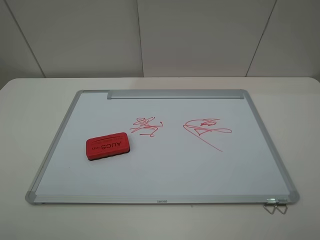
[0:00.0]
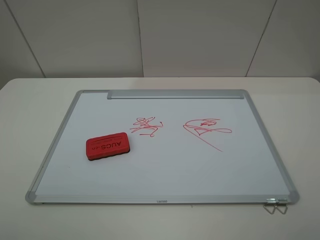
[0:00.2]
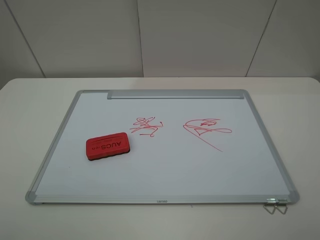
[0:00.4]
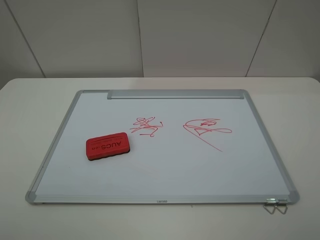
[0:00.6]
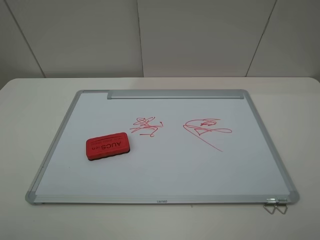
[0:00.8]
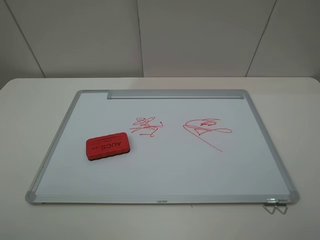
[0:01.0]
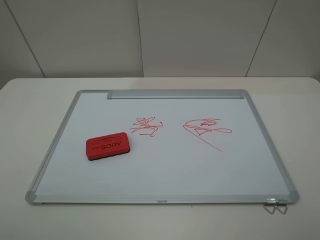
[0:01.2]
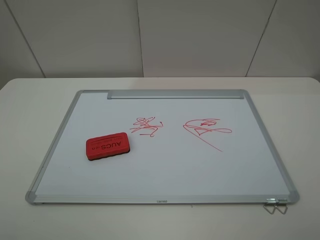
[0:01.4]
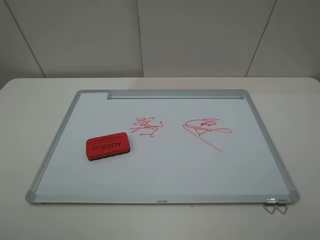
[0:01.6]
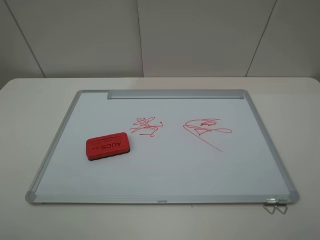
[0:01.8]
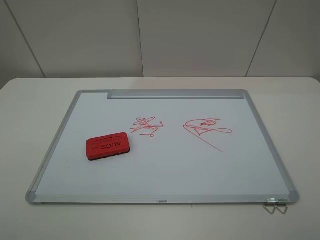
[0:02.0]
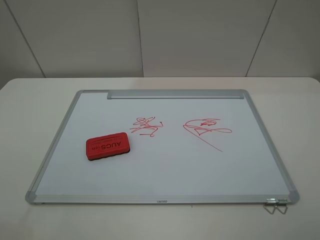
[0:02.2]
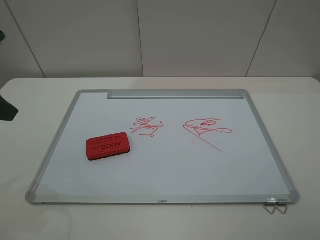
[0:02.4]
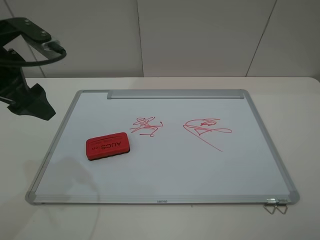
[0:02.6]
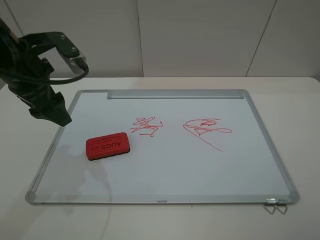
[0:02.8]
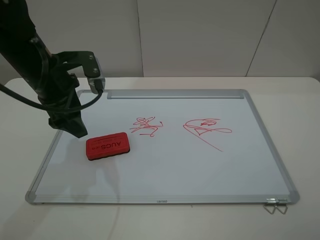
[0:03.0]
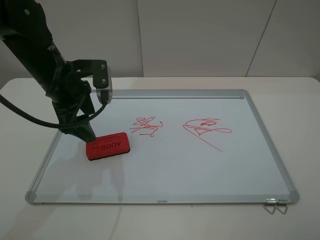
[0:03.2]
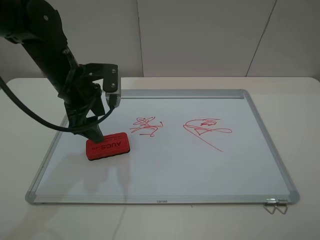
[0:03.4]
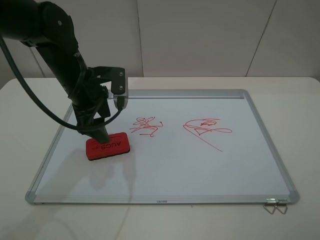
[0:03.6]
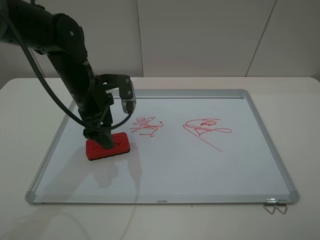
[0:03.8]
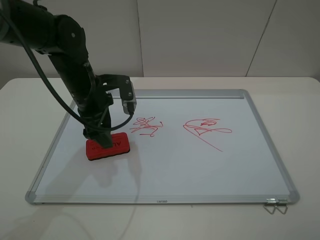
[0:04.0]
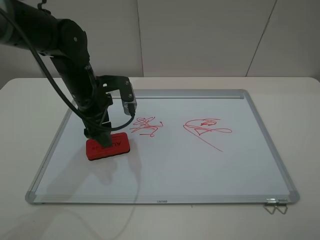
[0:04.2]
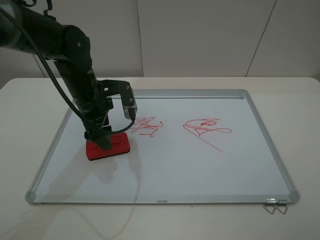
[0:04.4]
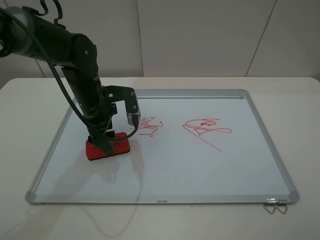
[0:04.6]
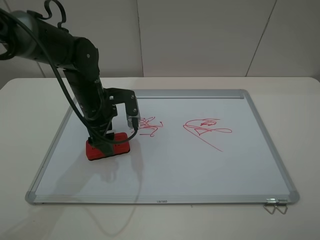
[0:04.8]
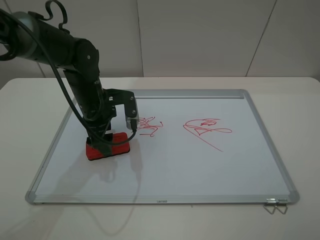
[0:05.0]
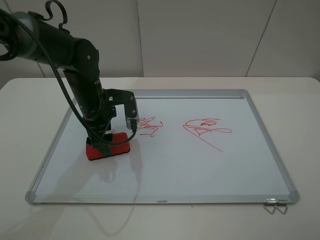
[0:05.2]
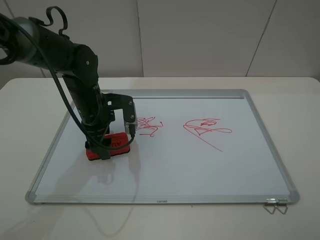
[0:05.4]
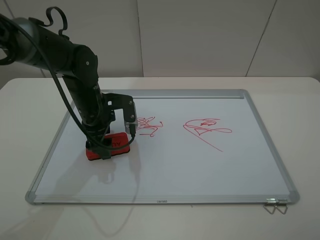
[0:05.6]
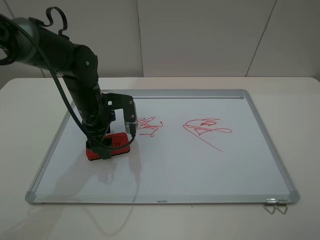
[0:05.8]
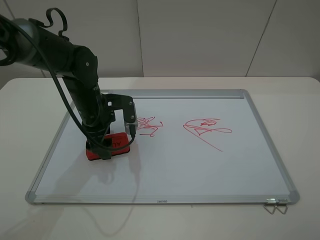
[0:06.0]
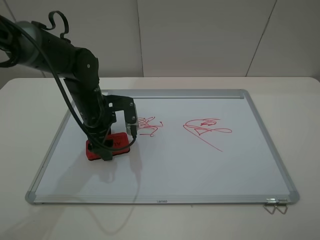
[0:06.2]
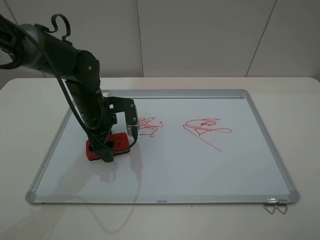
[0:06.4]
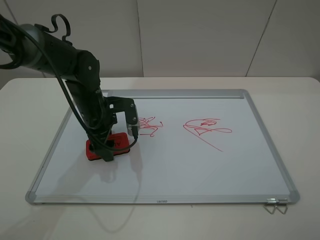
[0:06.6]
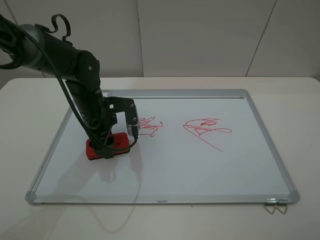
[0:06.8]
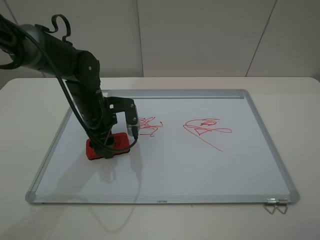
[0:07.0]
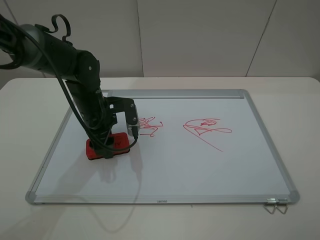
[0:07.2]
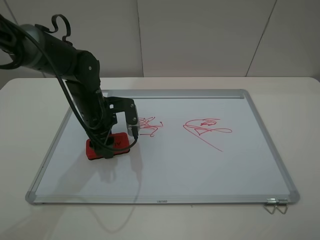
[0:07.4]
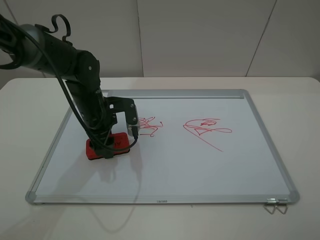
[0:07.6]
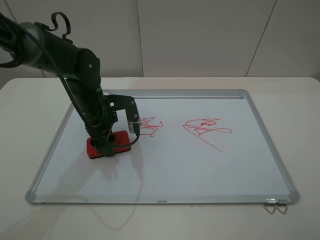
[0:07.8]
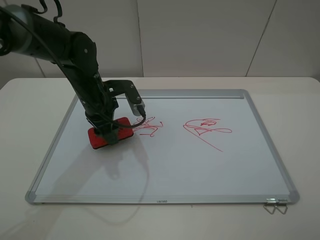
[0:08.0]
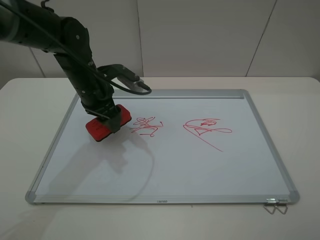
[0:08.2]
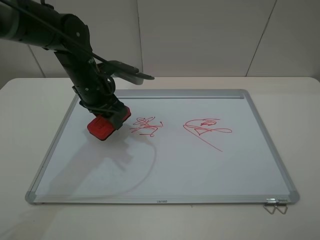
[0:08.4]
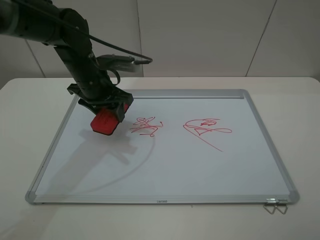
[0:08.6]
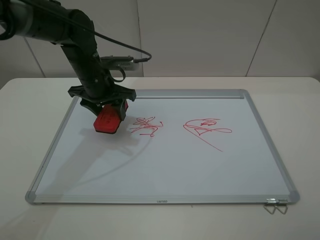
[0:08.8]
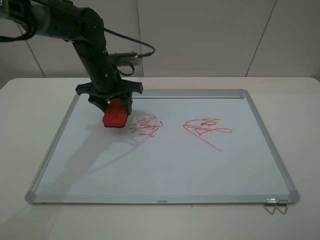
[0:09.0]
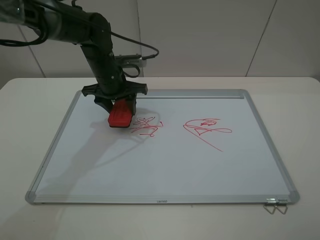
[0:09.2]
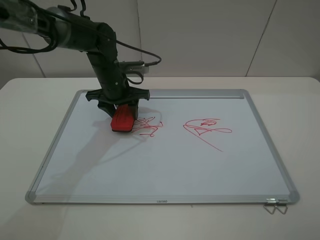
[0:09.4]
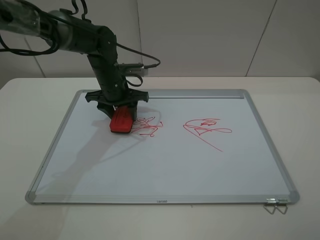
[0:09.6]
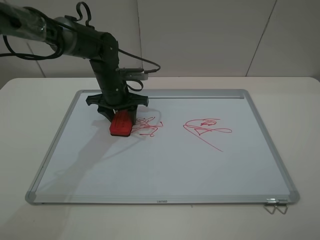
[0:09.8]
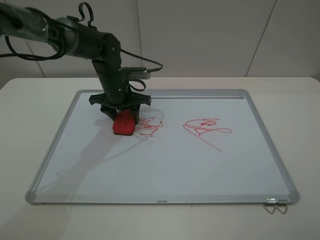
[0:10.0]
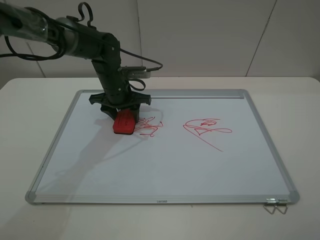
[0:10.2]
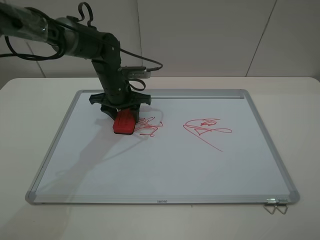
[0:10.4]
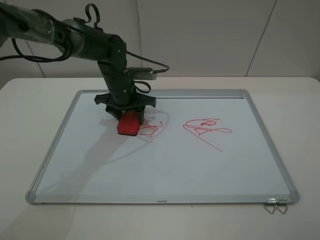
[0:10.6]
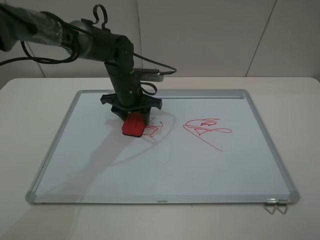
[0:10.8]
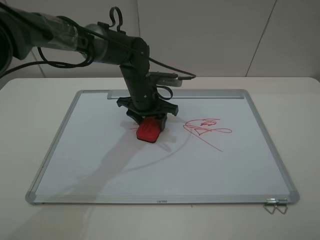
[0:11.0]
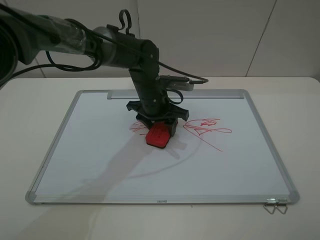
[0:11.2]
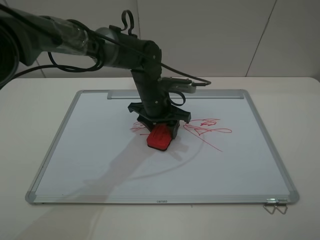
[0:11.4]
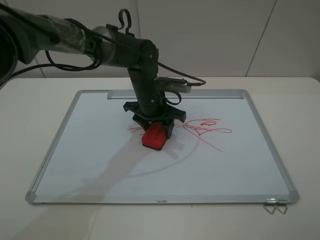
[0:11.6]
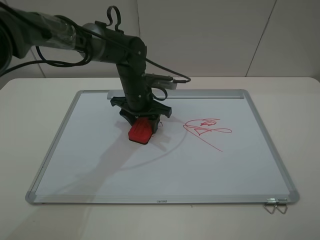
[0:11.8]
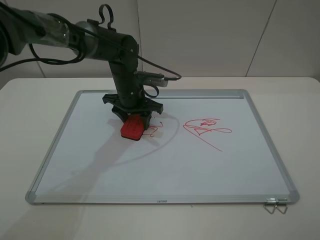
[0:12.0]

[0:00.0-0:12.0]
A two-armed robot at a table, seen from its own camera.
Step, 0:00.0 to 0:06.8: Grasp the eraser with the left gripper.
0:00.0 to 0:01.6: Neither gripper changes place.
0:01.6 to 0:03.0: The left gripper shifts about 30 cm forward and to the right.
0:03.0 to 0:04.4: The left gripper goes about 5 cm downward.
0:04.4 to 0:06.0: The grippers move only a little.
0:06.0 to 0:07.6: The left gripper closes.
0:07.6 to 0:09.0: The left gripper travels forward and upward by roughly 10 cm.
0:09.0 to 0:10.4: The left gripper moves approximately 5 cm.

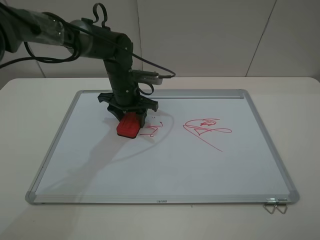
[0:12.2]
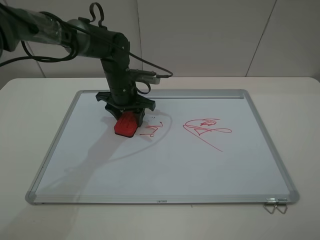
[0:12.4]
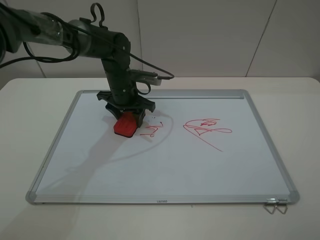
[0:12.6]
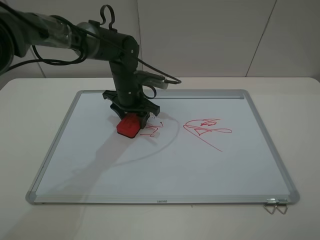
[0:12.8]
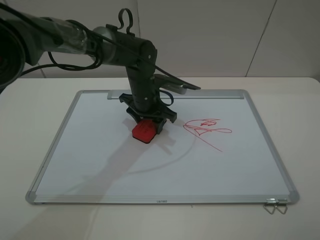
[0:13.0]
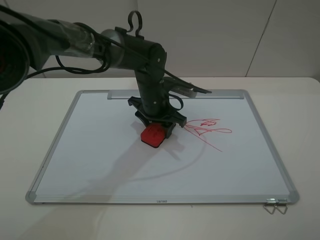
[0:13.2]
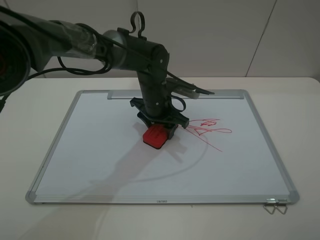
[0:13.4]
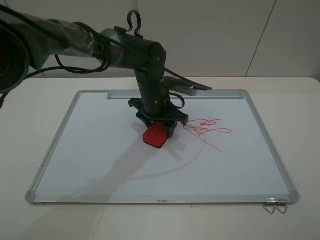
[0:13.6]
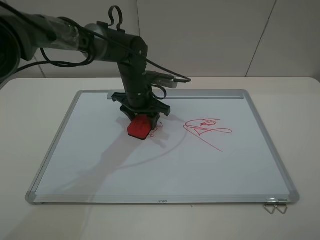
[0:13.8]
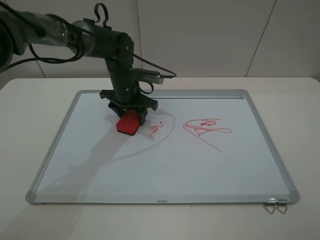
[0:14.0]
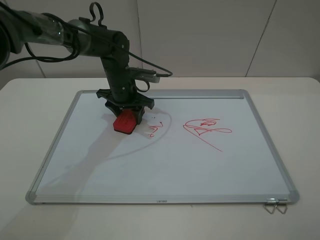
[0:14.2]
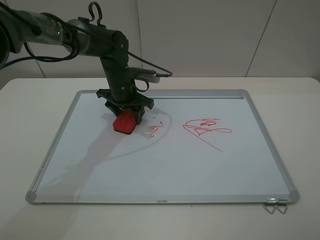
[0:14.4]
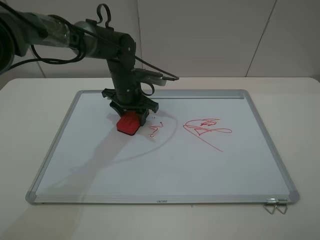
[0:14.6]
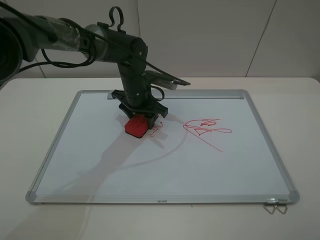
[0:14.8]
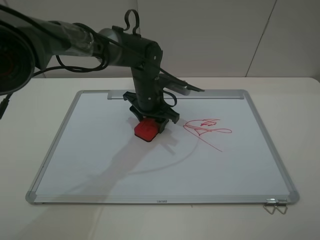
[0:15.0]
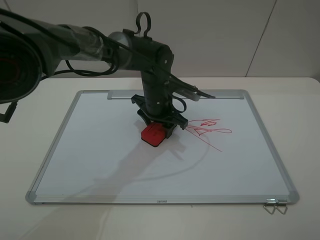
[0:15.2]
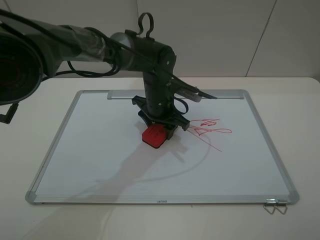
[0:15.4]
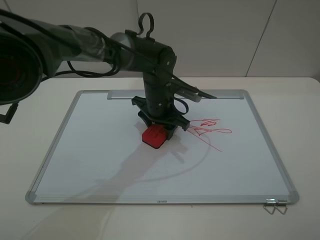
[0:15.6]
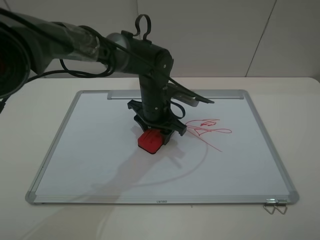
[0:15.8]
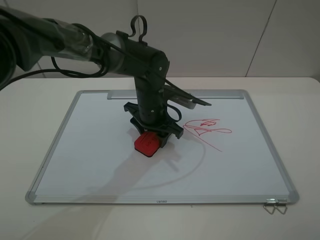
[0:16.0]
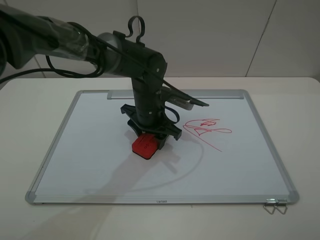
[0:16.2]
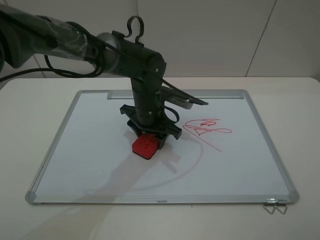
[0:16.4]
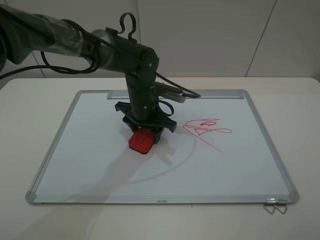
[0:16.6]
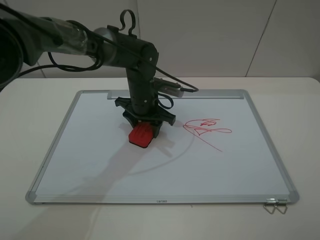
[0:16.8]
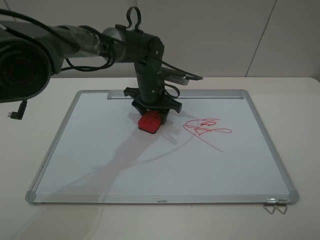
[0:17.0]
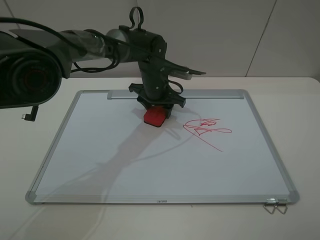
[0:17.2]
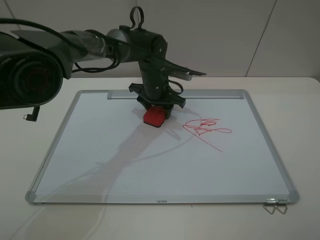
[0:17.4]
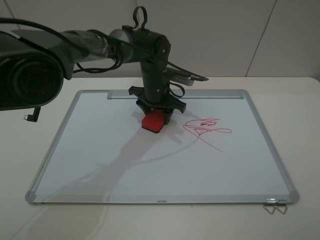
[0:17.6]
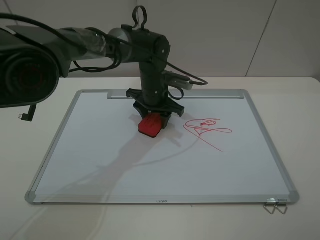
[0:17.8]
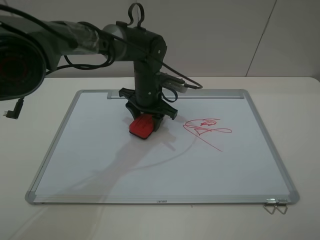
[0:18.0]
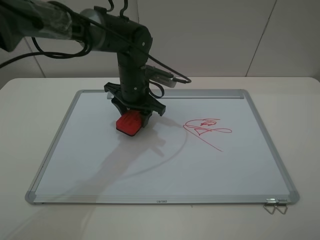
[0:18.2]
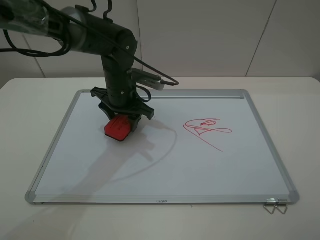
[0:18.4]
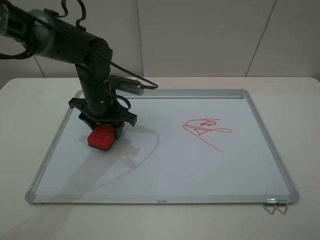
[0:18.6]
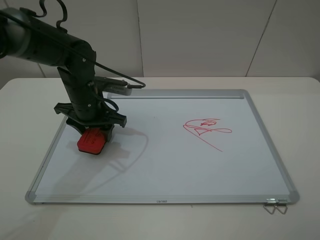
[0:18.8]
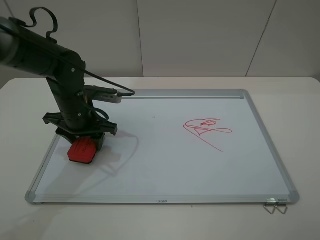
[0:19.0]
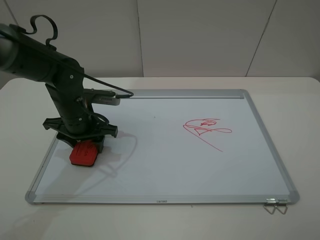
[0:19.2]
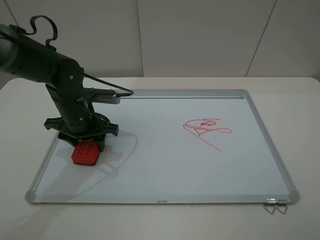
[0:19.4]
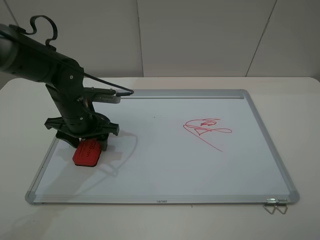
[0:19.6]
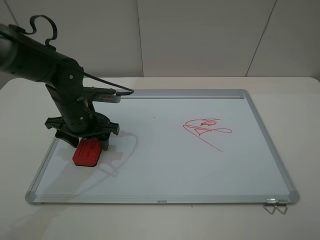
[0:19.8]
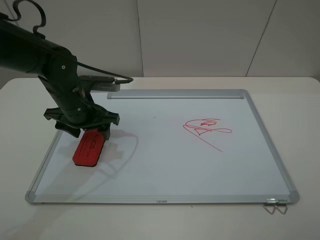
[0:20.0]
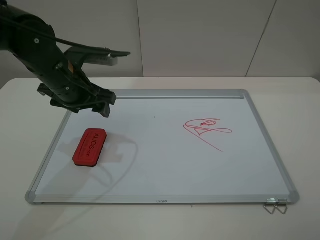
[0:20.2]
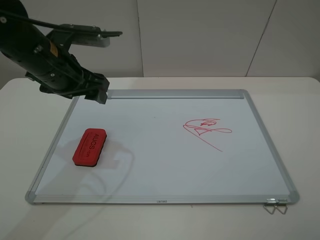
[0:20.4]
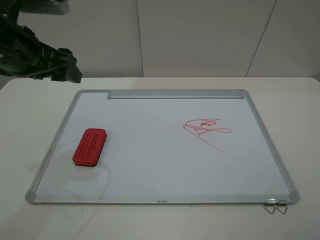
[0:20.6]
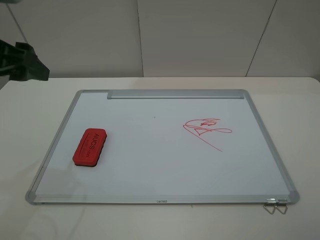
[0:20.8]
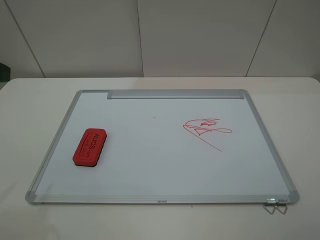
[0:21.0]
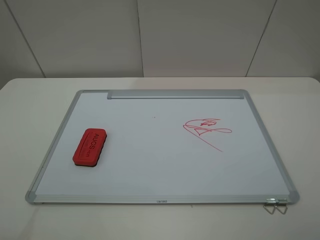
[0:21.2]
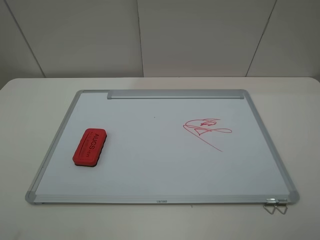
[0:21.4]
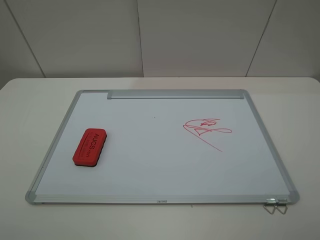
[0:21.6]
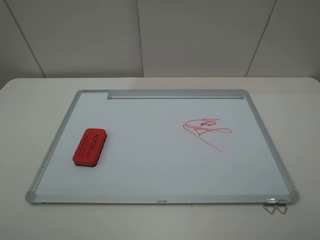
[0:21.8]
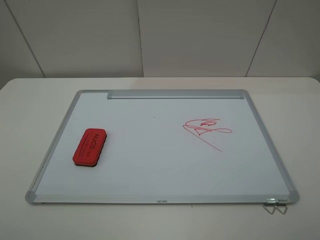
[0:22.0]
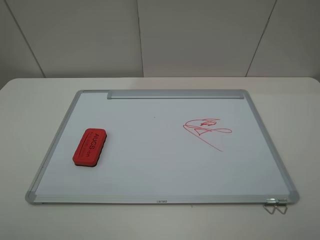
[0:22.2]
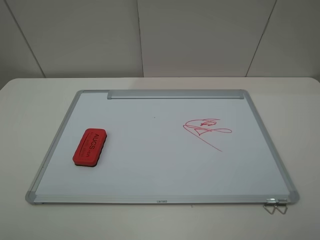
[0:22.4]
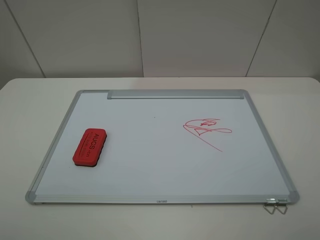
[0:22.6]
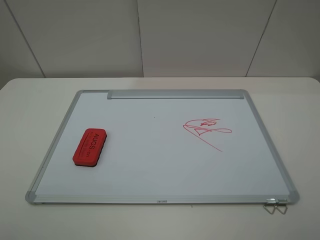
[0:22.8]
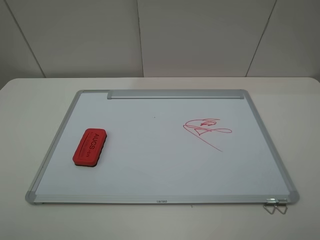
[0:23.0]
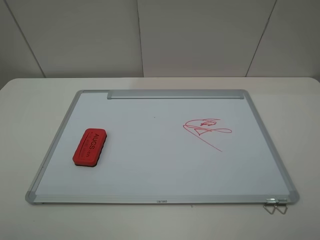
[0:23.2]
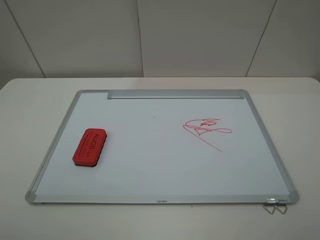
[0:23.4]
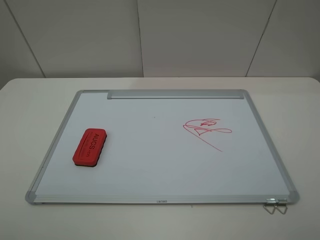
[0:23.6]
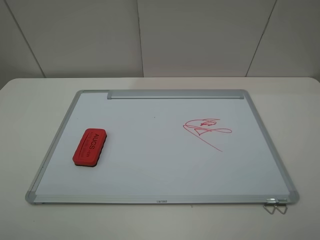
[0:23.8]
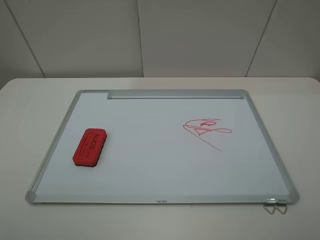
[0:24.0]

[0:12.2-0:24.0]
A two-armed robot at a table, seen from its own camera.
Step, 0:12.2 to 0:18.2: Grasp the eraser and wipe the blackboard with the left gripper.
Step, 0:18.4 to 0:20.0: Place the eraser with the left gripper.
0:12.2 to 0:13.6: The left gripper is displaced to the right by some 5 cm.
0:13.6 to 0:15.2: The left gripper goes to the left and returns, approximately 10 cm each way.
0:15.2 to 0:16.6: There are only small adjustments of the grippers.
0:16.6 to 0:18.2: The left gripper ends up some 5 cm from where it was.
0:18.2 to 0:19.6: The left gripper goes approximately 15 cm to the left and backward, and opens its fingers.
0:19.6 to 0:21.0: The left gripper travels upward, backward and to the left by roughly 30 cm, and opens.
